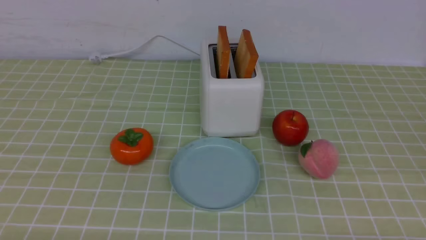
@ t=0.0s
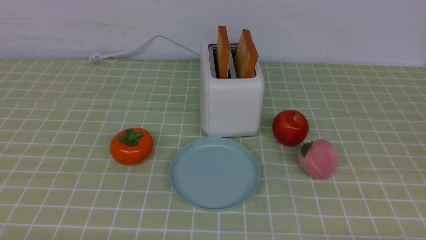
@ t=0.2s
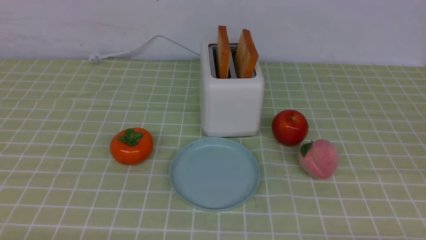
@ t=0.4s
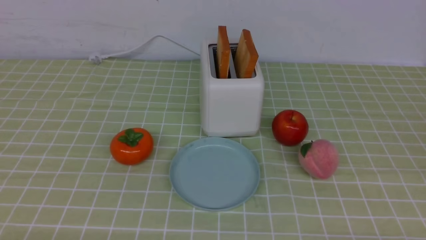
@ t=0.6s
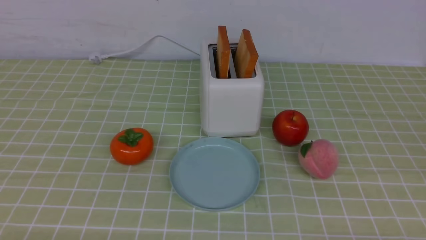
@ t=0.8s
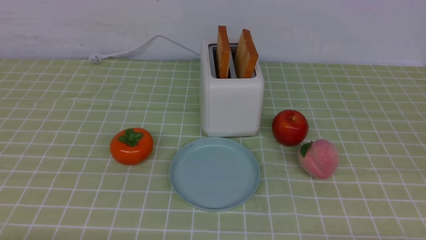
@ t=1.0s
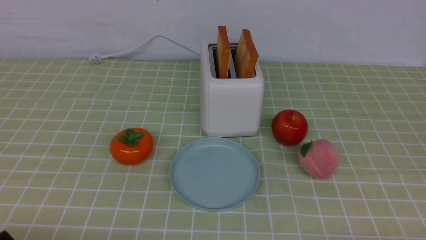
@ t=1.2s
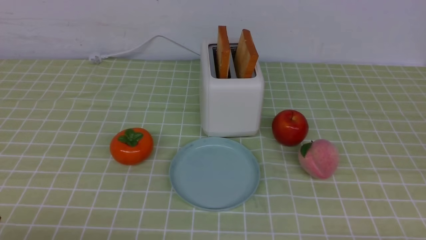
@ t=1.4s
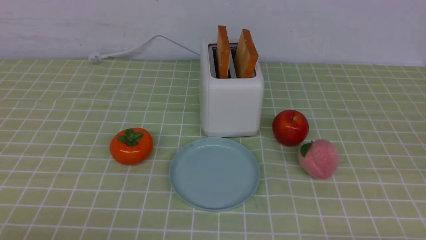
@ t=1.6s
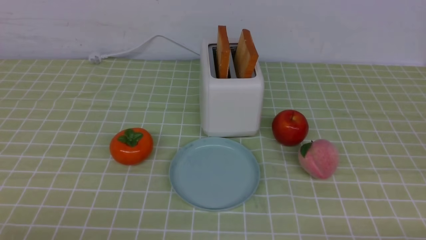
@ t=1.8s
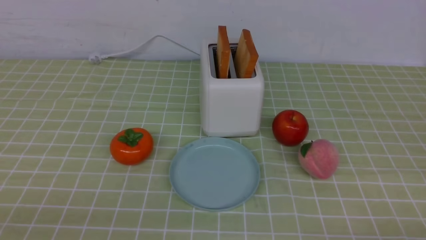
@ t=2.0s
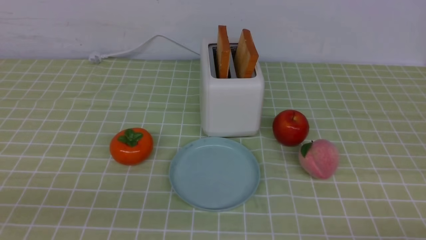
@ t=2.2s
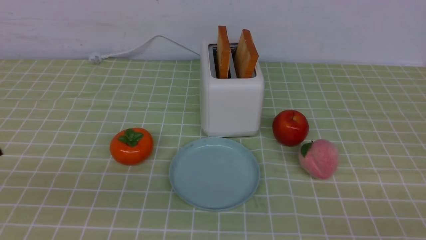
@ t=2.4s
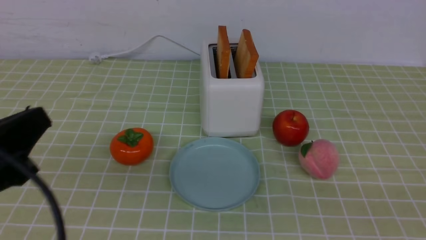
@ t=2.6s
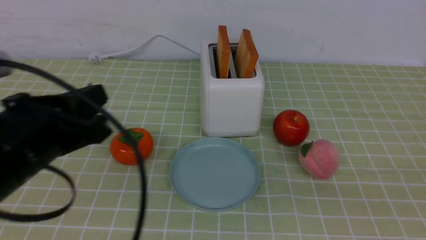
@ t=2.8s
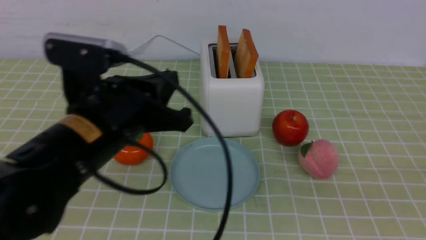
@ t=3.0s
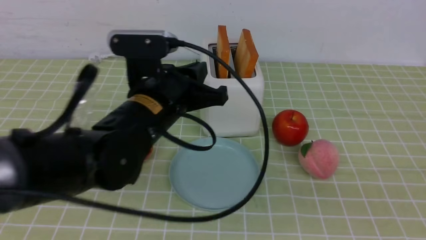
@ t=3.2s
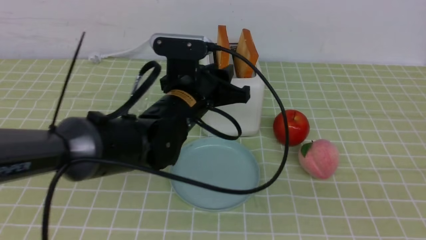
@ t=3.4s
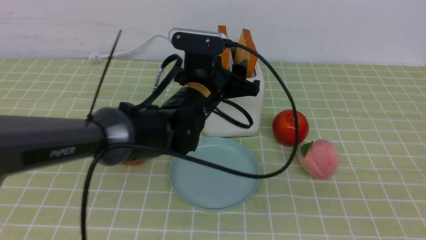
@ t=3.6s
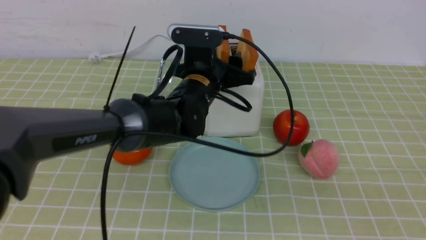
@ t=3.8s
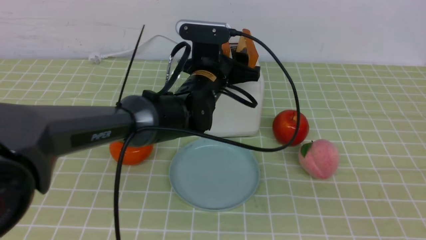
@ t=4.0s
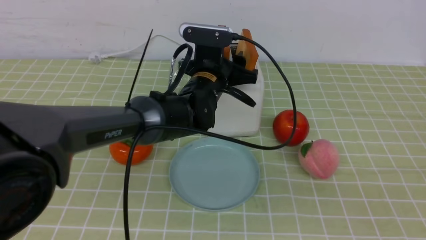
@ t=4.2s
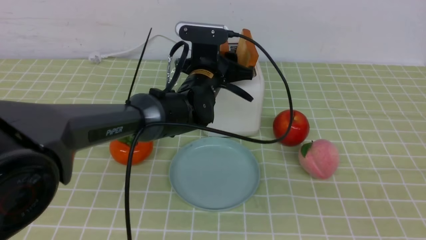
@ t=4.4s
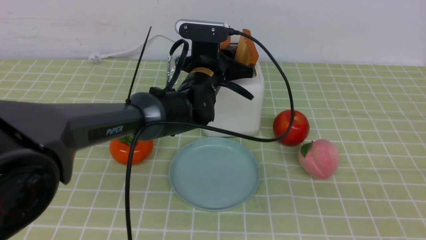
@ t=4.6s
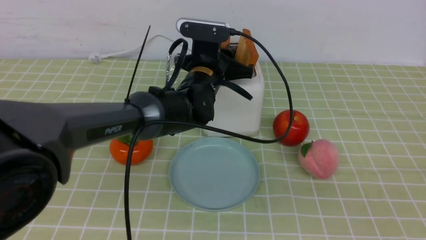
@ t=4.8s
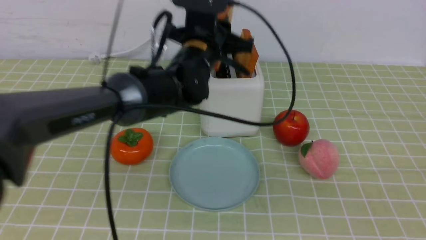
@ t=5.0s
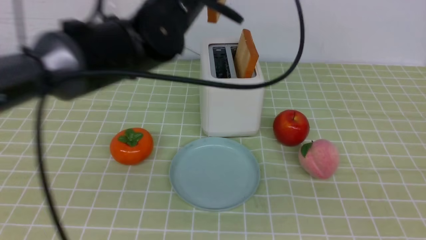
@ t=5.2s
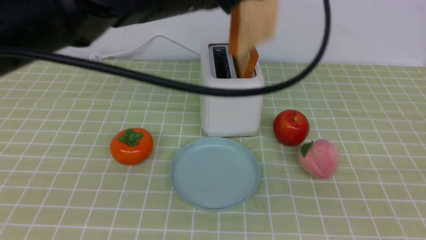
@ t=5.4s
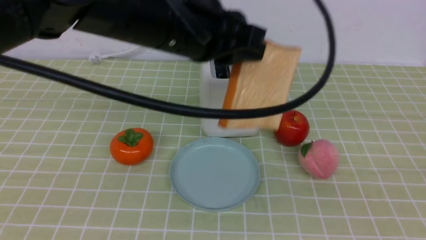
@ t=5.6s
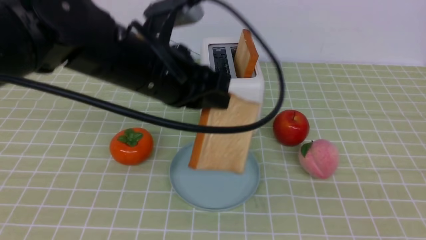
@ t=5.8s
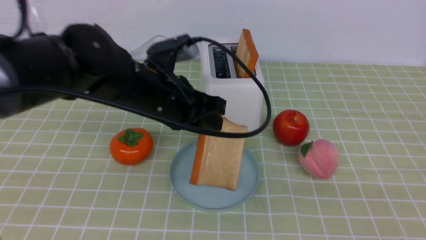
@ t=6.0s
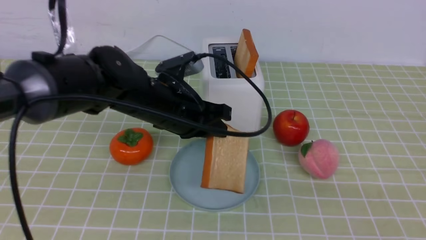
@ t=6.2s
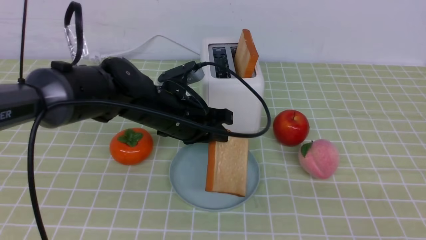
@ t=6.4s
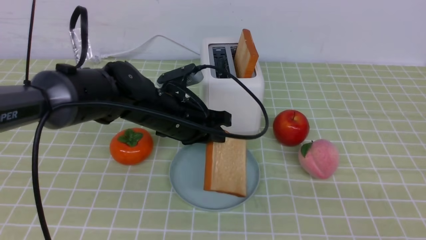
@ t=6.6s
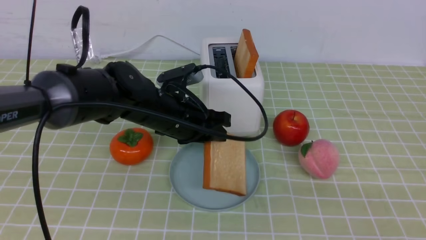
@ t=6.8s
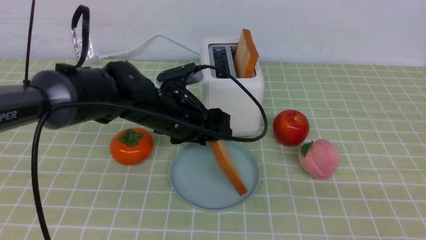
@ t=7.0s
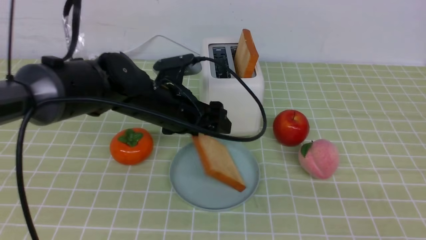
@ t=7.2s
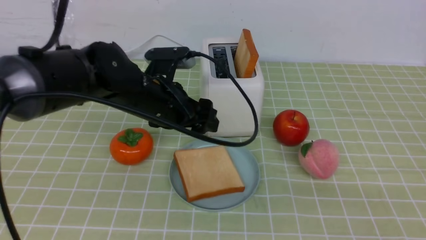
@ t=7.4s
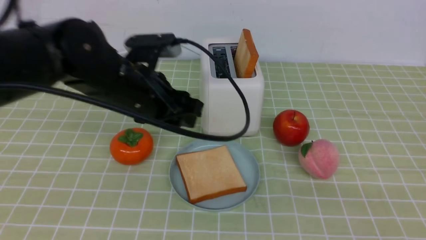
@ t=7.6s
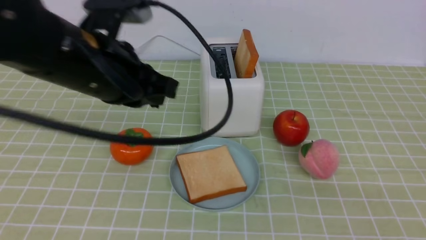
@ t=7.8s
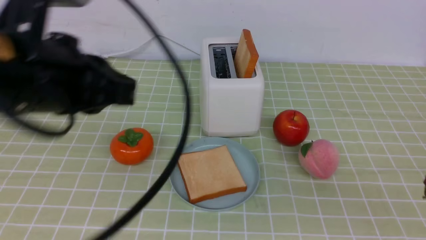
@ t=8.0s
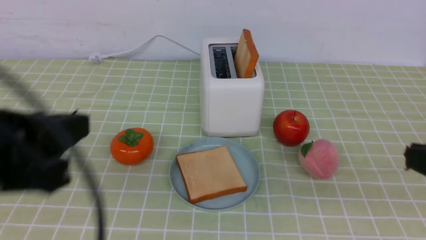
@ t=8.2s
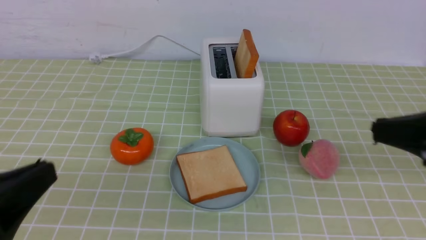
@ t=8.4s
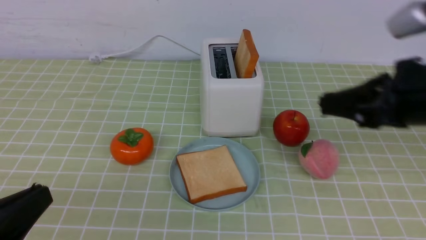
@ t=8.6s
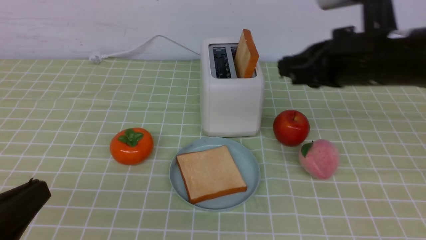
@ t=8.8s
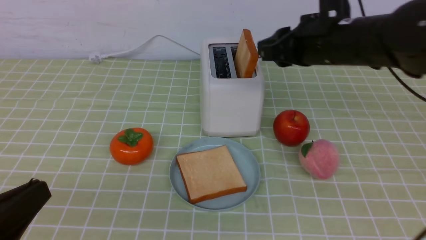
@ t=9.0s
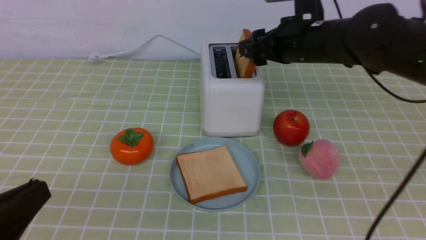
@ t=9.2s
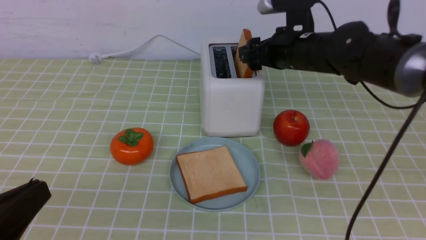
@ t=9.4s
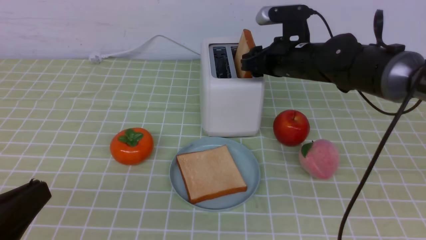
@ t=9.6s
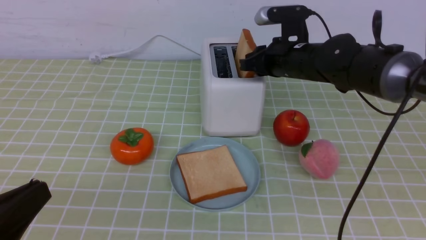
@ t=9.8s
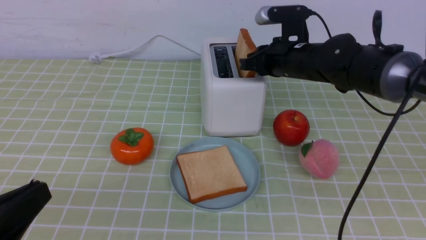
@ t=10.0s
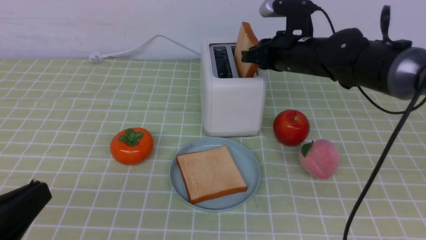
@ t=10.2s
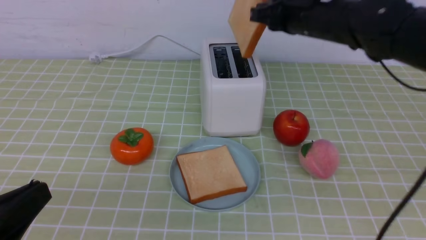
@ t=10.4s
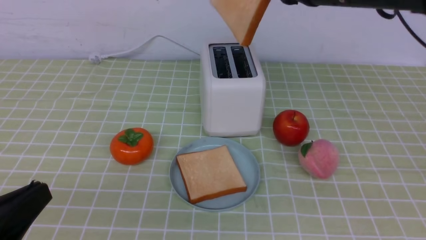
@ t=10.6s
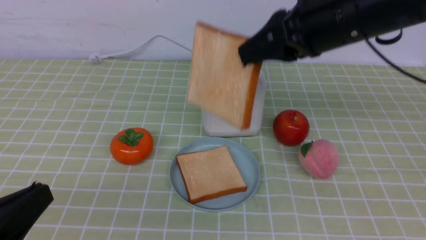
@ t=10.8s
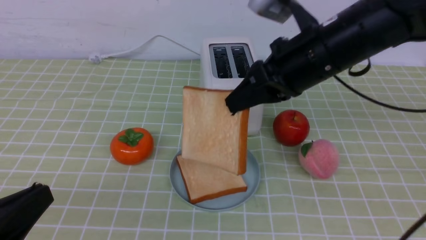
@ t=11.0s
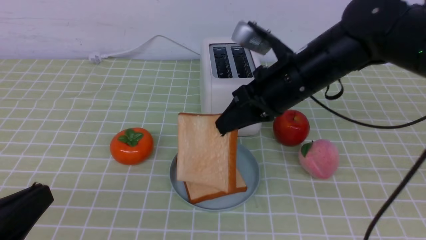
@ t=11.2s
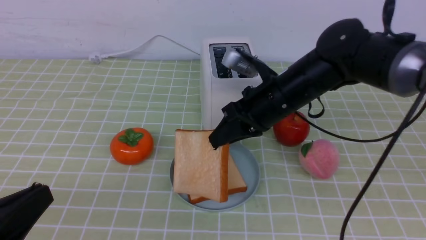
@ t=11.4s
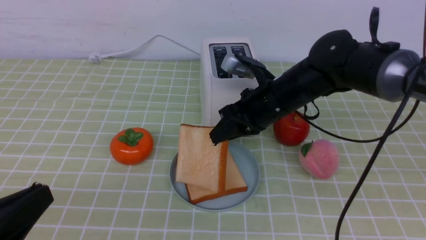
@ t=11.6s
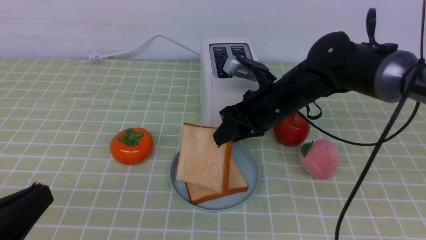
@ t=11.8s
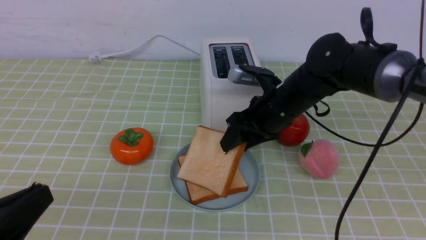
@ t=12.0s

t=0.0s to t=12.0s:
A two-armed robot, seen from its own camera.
Task of the whole recording: take toasted bread from bread machine on green coffee tablecloth place on plate.
Step, t=0.0s to t=5.0s: use the left arm to take out a slice of bread.
Step, t=5.2s to t=7.4s: use the left arm to put a slice of bread into the empty plate.
Step, t=7.6s to t=10.4s: use the right arm to take out a slice of bread.
t=1.6s to t=3.0s: The left gripper goes about 25 cm forward, to the right and upward, and closes up. The right gripper shifts about 15 cm upward, and closes up.
t=3.0s to t=4.4s: The left gripper travels forward and to the right by approximately 20 cm, and opens its fingers.
t=4.4s to t=6.0s: The left gripper travels backward and to the left by about 10 cm, and moves some 15 cm upward and comes back.
t=6.0s to t=7.6s: The left gripper changes place by some 5 cm, and opens, then closes again.
t=7.6s to t=9.0s: The right gripper moves forward, roughly 30 cm, and opens up. Meanwhile the left gripper is displaced backward and to the left by some 25 cm, and closes.
t=9.0s to t=10.4s: The right gripper goes downward and returns, about 5 cm each way, and closes up.
t=10.4s to t=12.0s: The right gripper shifts roughly 10 cm downward, and opens.

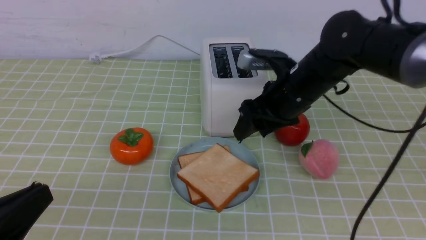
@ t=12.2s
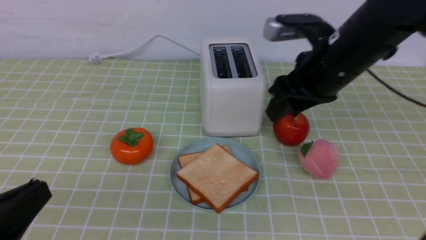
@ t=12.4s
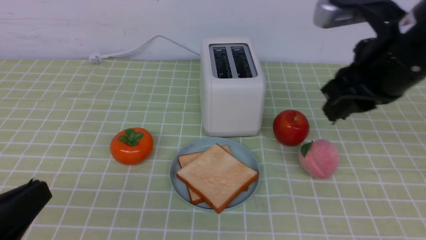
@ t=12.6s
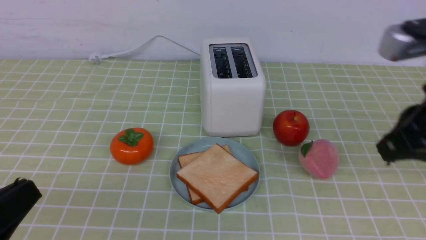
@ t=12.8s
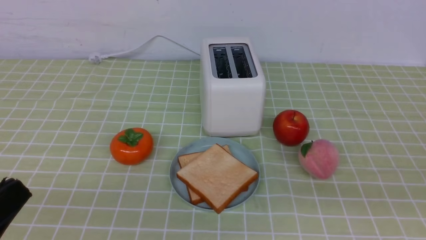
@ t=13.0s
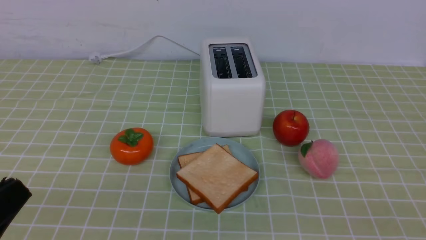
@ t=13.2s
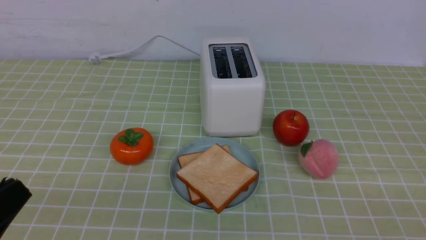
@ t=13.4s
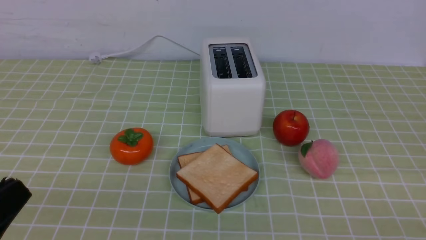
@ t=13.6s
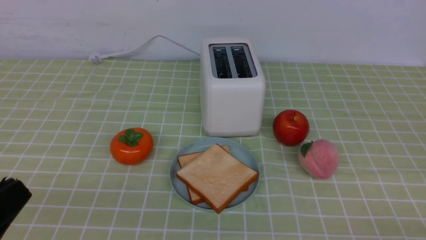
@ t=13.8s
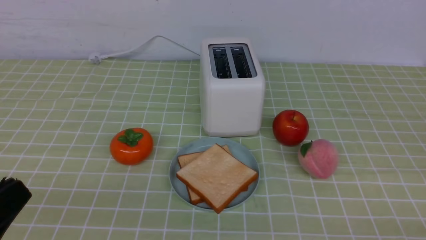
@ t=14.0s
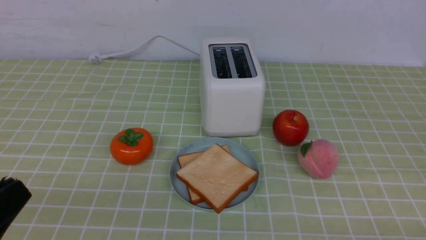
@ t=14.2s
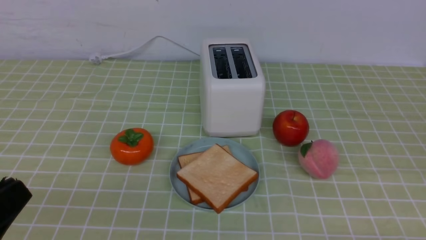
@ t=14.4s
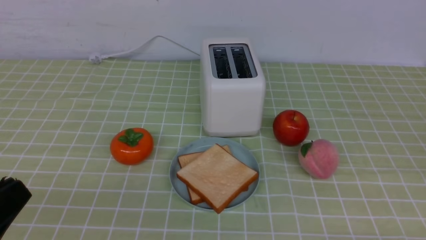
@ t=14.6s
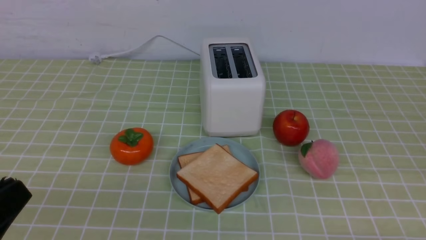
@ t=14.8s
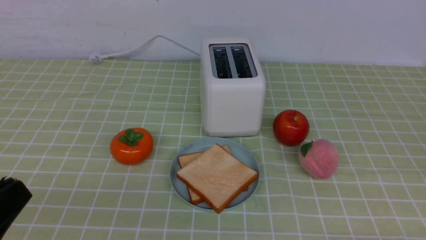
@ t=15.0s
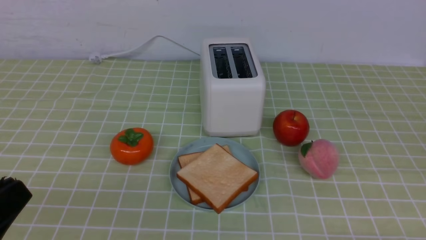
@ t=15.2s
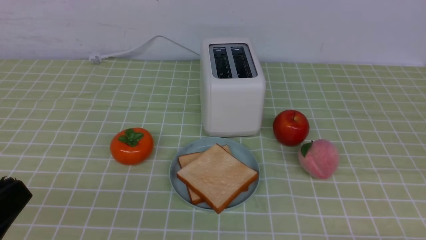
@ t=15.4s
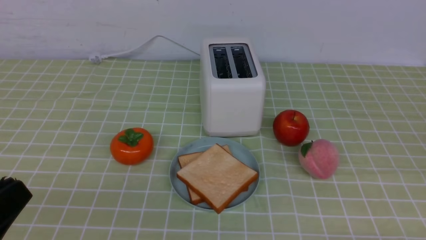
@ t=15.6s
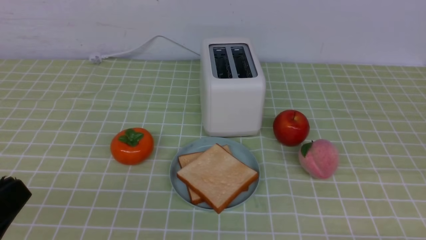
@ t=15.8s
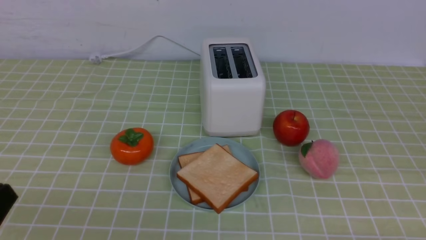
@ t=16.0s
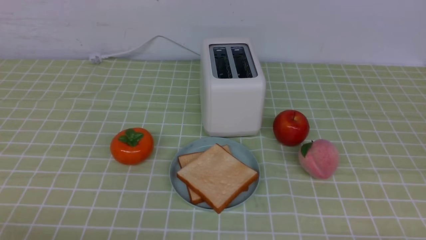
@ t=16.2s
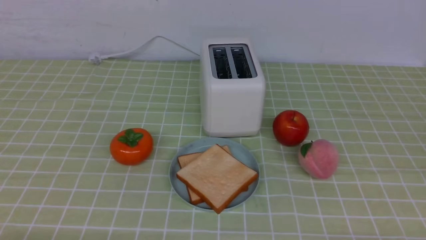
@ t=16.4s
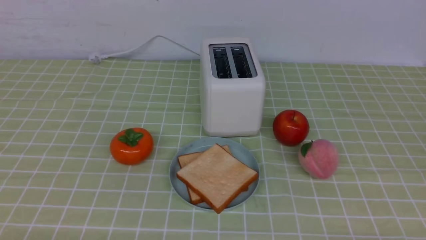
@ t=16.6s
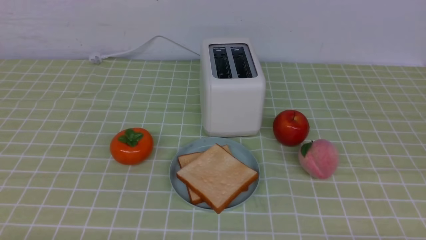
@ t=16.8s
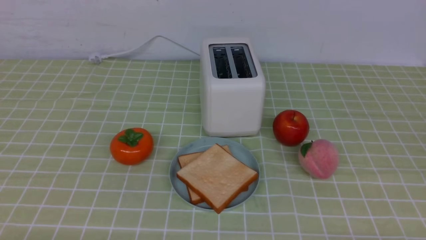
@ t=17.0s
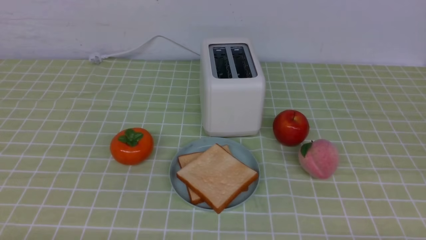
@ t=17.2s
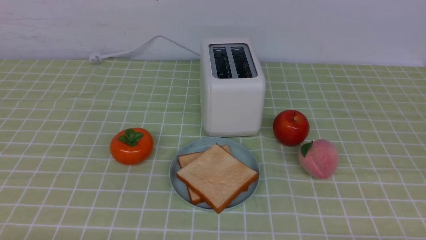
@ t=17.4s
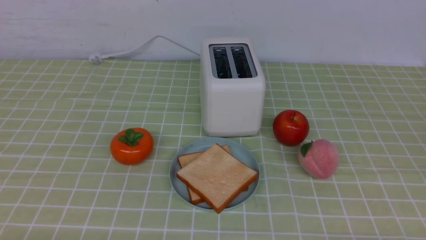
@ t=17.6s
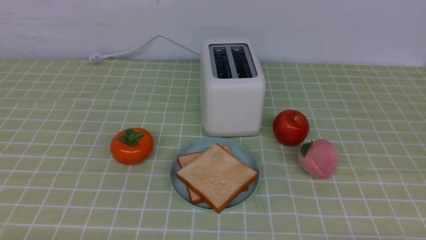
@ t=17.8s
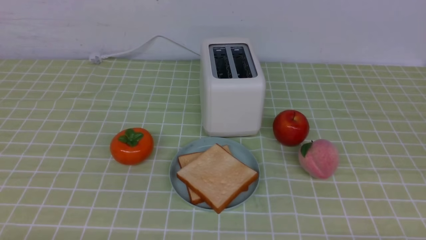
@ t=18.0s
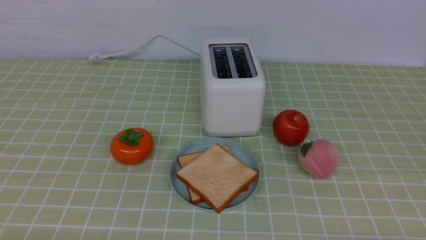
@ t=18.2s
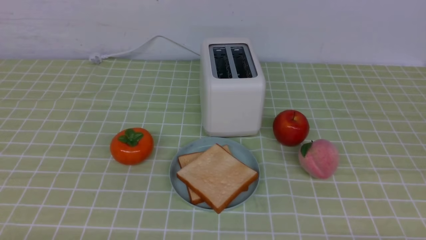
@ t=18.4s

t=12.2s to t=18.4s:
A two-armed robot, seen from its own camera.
Task of the whole recording: take toasted bread from bread machine on green coffee tablecloth place on plate.
t=12.2s to t=13.8s: The right gripper goes about 40 cm backward and to the right, and closes up.
t=15.4s to t=16.8s: The left gripper heads downward, covering about 10 cm.
t=16.8s to t=18.4s: The two grippers keep their place.
